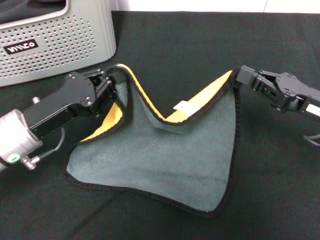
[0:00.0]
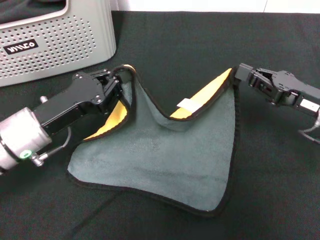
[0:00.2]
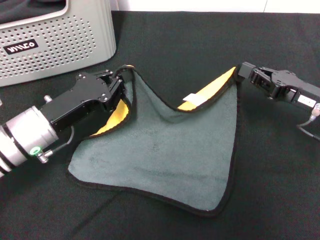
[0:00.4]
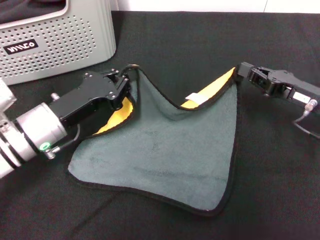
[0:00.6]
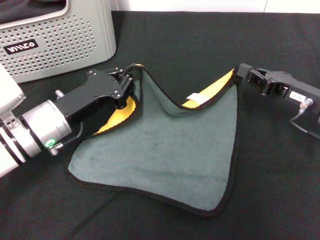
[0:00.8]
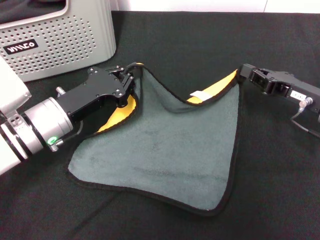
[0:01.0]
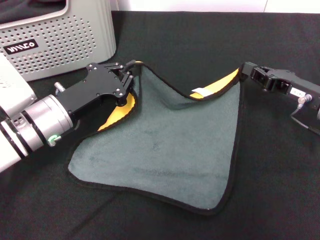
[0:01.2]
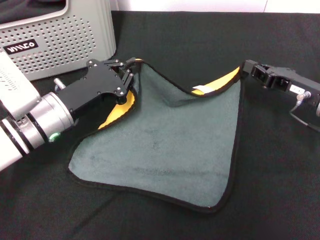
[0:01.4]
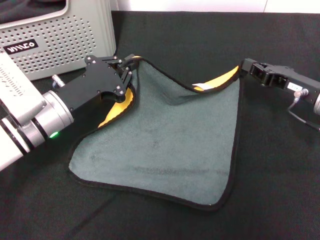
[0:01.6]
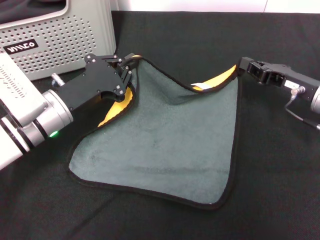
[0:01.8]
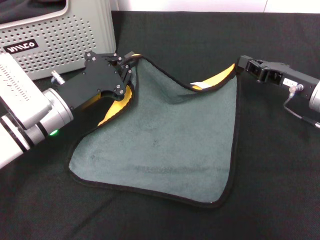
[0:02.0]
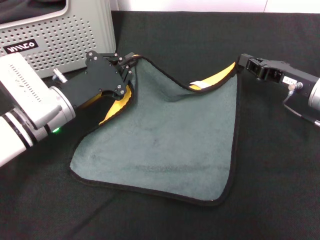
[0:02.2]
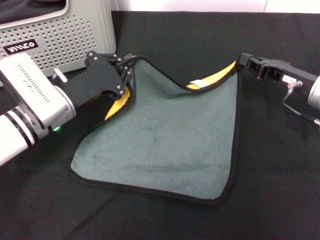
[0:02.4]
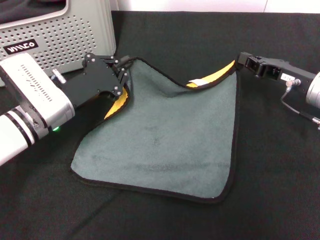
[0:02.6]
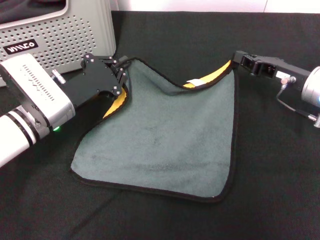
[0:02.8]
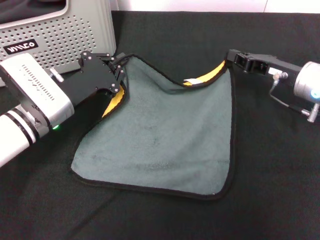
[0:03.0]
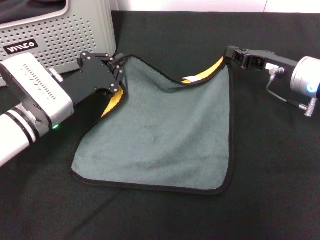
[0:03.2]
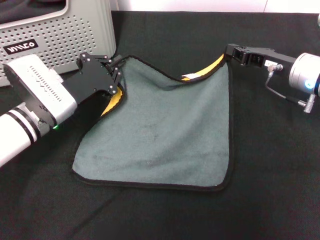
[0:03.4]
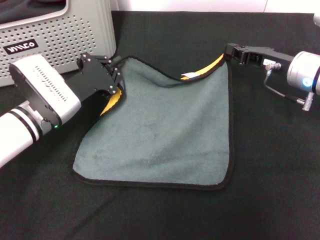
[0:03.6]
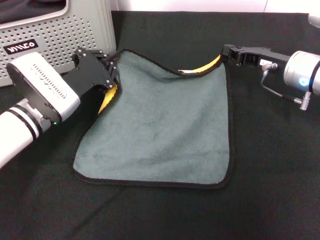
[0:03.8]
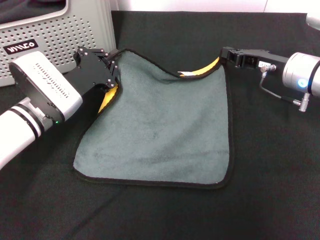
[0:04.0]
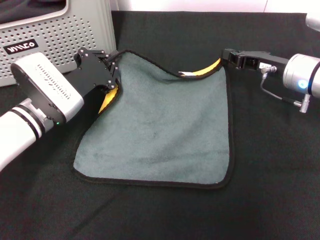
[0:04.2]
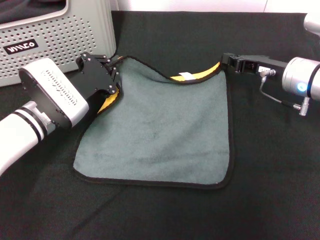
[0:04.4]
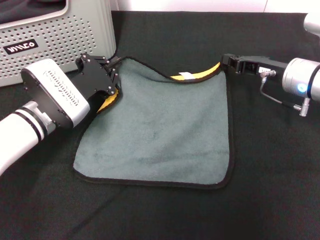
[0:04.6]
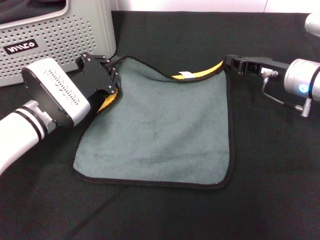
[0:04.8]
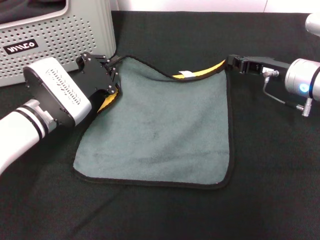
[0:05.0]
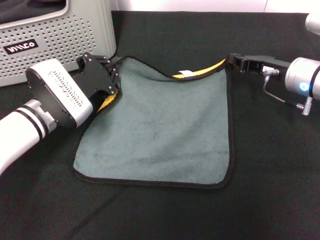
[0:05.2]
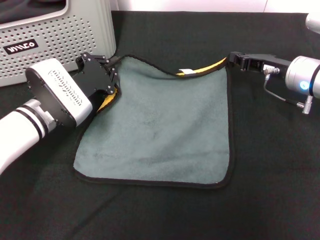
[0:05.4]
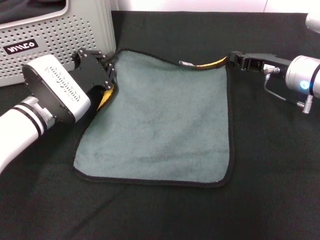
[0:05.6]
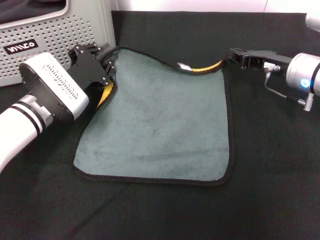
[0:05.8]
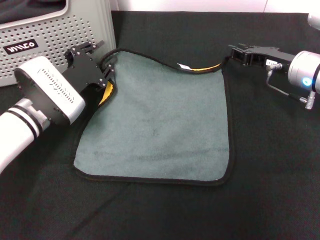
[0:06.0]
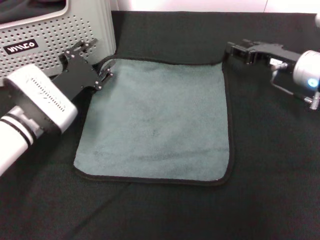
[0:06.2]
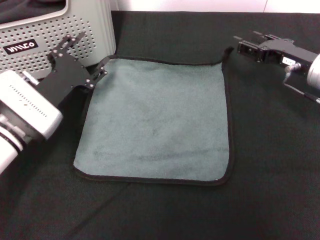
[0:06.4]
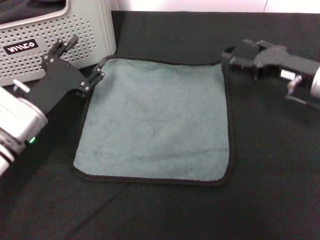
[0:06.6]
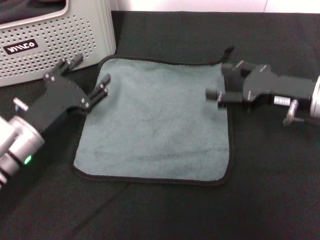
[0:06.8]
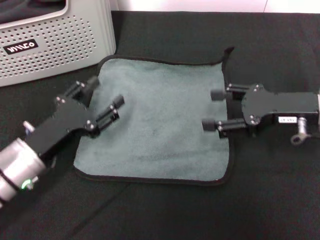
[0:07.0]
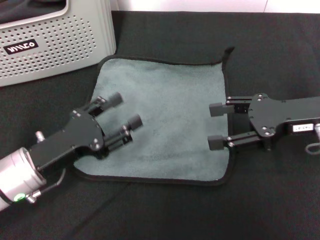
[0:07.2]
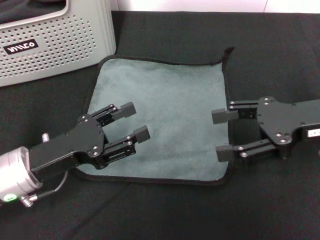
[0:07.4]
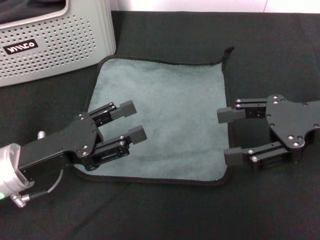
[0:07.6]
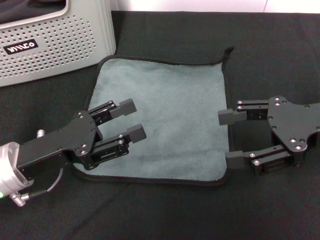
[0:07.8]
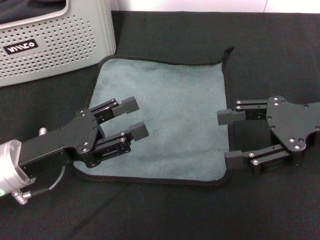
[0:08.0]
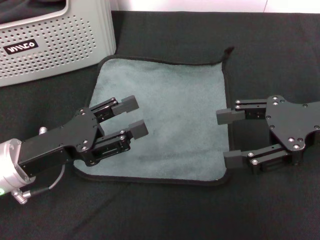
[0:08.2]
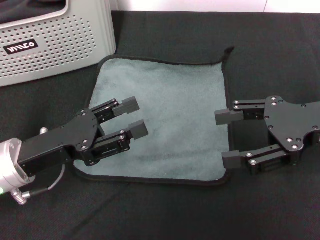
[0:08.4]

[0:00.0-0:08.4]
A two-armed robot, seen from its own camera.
Task of the whole recording: pick up the towel from the storage box and lay it flat on the black tablecloth.
Step, 0.0 to 6.0 s: Spread the towel flat with the right gripper.
0.0 to 1.4 s: The left gripper changes place by about 5 cm; the right gripper goes about 5 cm forward.
2.8 to 5.6 s: There are only small adjustments of the grippers.
5.6 to 7.0 s: The two grippers go roughly 10 cm backward. The right gripper opens. The left gripper opens its fingers.
7.0 to 8.4 s: Both grippers travel together upward, about 5 cm.

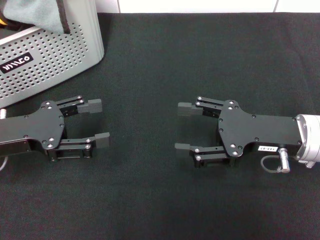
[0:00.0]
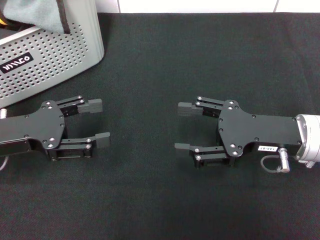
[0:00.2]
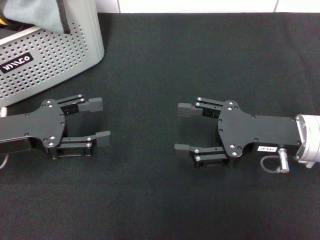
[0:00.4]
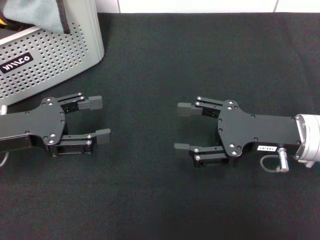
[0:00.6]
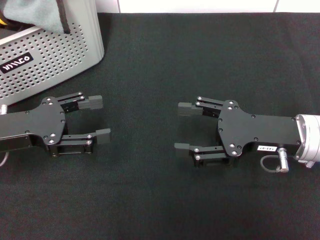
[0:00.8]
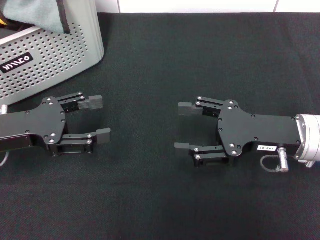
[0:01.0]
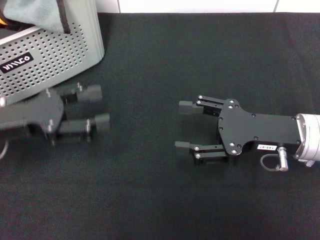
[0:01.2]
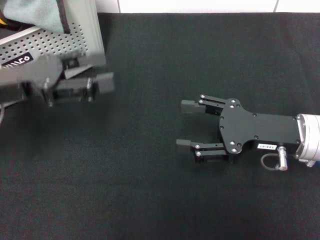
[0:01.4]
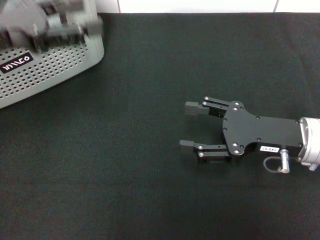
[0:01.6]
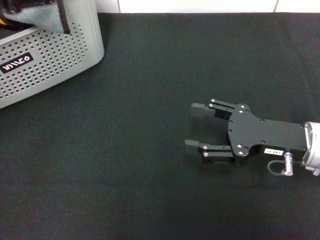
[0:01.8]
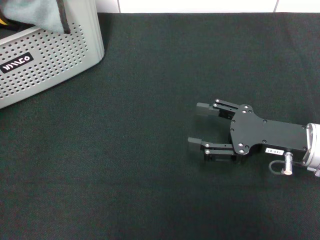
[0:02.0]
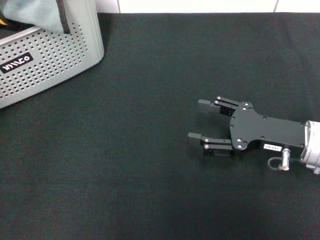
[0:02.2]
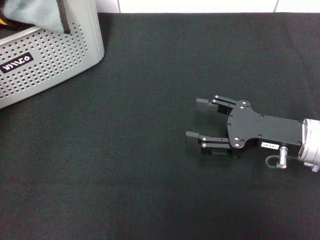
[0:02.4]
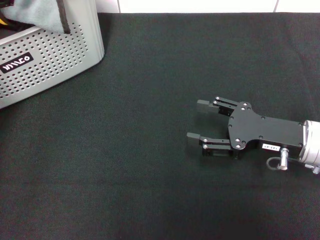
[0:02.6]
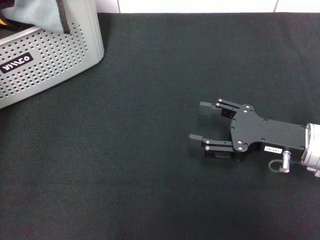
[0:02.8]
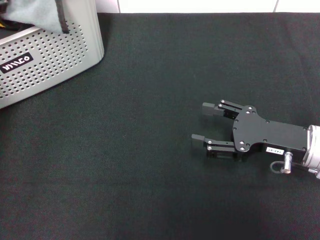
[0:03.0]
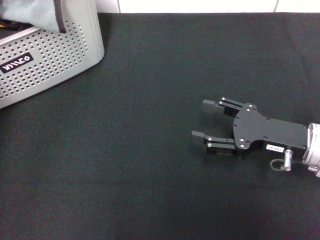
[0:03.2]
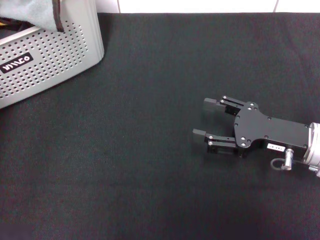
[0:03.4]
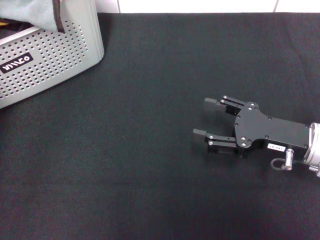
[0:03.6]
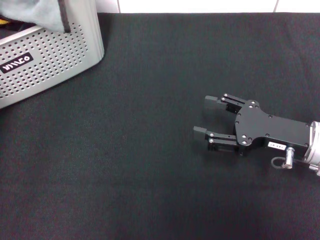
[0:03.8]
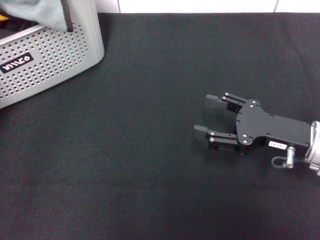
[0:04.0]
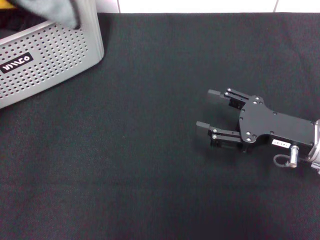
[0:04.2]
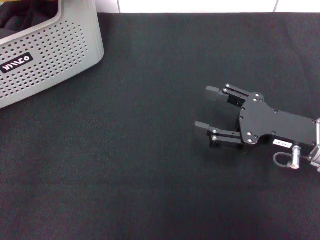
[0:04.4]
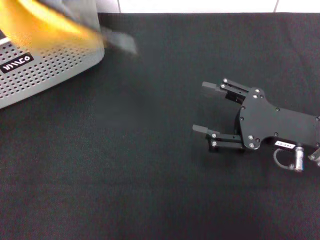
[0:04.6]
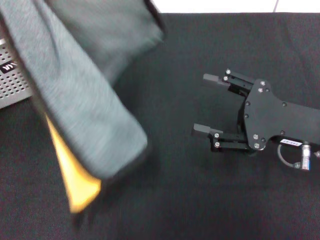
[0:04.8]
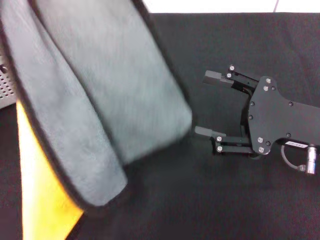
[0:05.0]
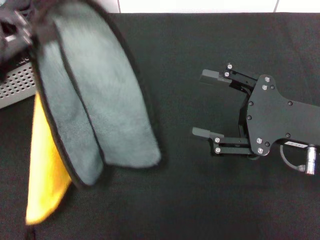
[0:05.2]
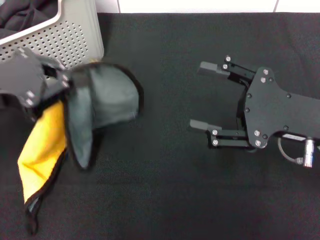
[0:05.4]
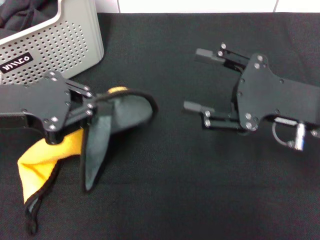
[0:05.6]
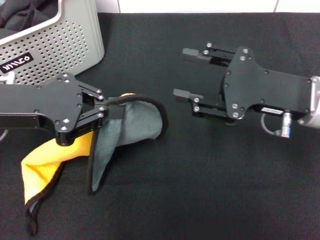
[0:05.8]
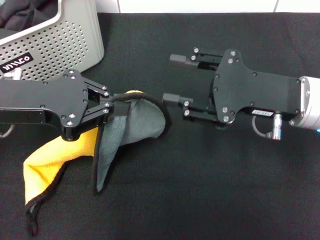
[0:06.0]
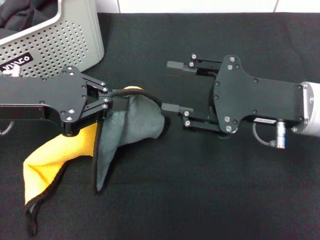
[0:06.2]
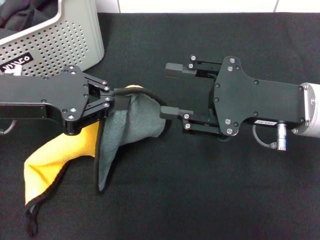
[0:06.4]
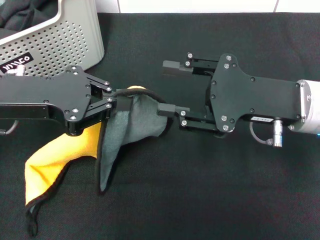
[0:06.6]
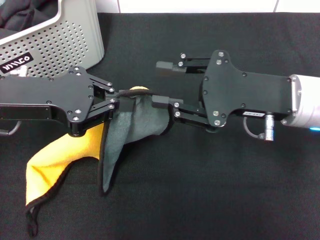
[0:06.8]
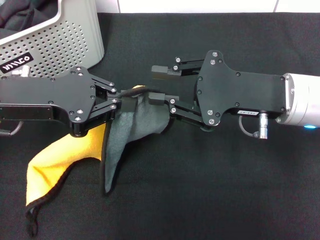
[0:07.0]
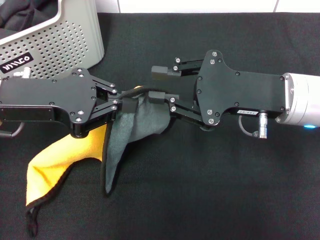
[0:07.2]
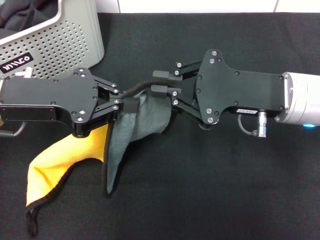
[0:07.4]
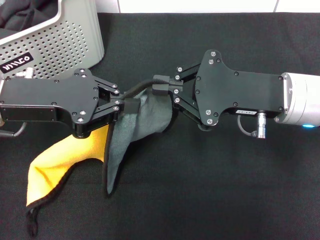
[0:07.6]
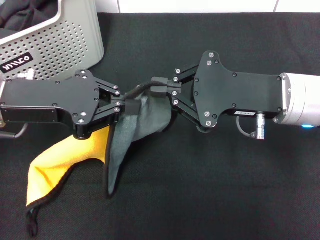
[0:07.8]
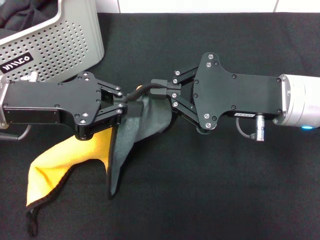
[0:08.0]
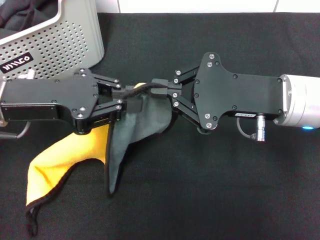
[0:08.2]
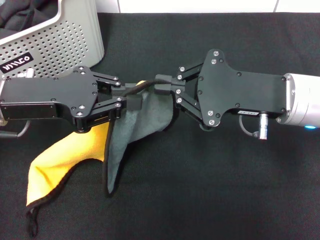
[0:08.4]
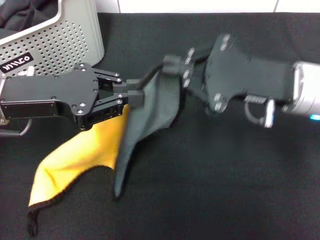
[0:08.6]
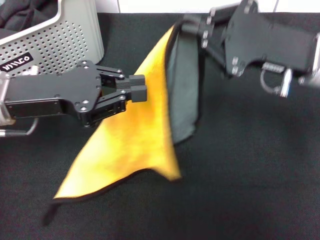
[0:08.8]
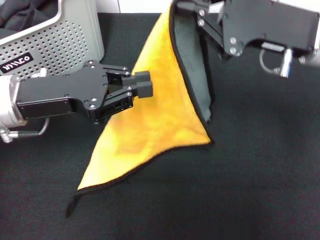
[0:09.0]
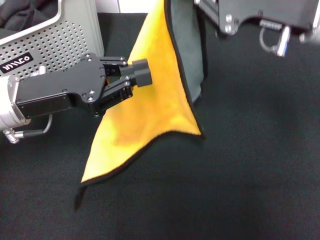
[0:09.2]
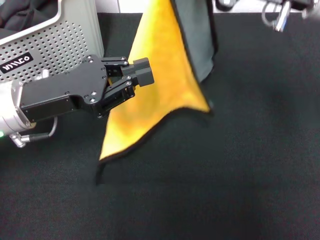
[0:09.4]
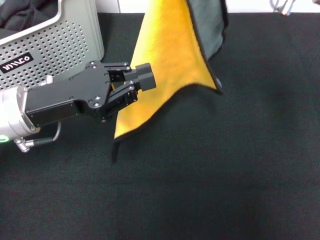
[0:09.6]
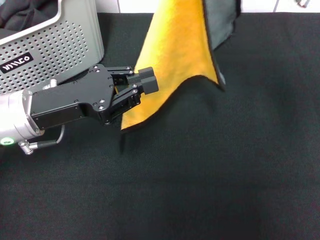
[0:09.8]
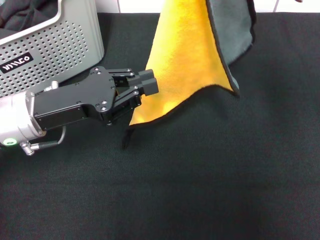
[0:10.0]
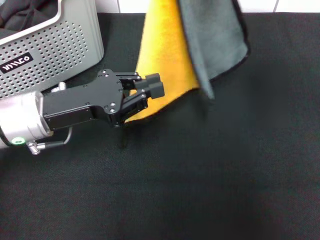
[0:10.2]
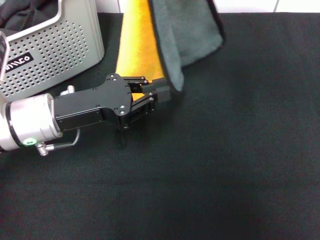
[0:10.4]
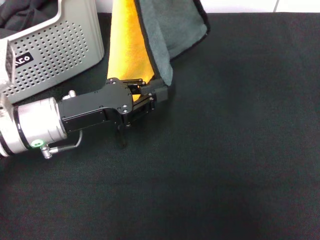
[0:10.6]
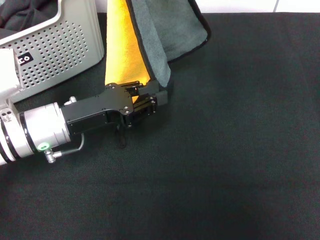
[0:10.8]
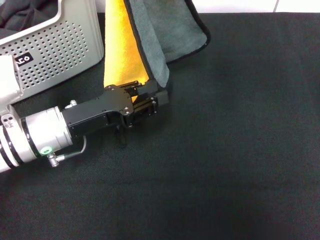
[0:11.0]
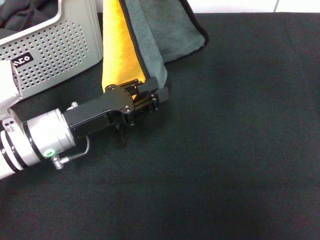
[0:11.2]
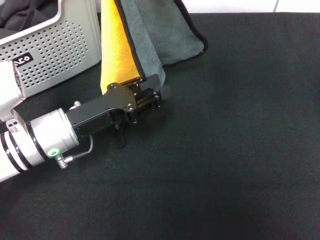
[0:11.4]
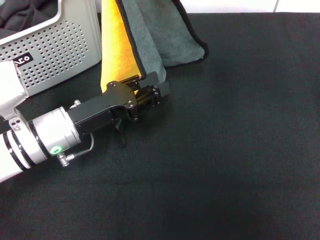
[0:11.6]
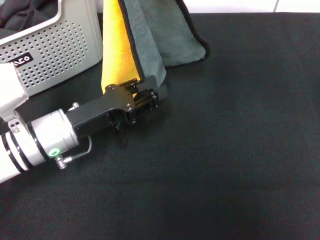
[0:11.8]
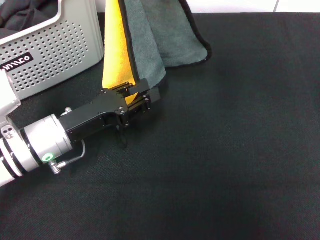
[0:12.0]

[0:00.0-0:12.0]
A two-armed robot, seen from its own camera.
Task of the whole recording: pick up the towel from the storage box and lay it flat on the black tablecloth.
Step, 0.0 to 3.2 s: Pick up a towel with the left gripper.
Step, 3.4 to 7.6 s: Spread the towel flat with the left gripper.
0.0 to 1.6 s: The left gripper shifts about 10 cm upward.
1.6 to 3.0 s: The left gripper shifts by approximately 5 cm.
3.0 to 4.4 s: The left gripper shifts about 5 cm backward, and closes up.
4.4 to 6.0 s: The right gripper travels upward by some 5 cm, while the left gripper heads downward and to the right, covering some 10 cm.
6.0 to 7.6 s: The right gripper closes.
7.6 to 9.0 s: The right gripper ends up roughly 5 cm from where it was.
9.0 to 10.4 s: The right gripper moves upward, about 10 cm, while the left gripper ends up about 5 cm from where it was.
10.4 to 12.0 s: The left gripper moves downward, approximately 5 cm.

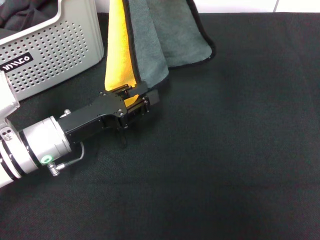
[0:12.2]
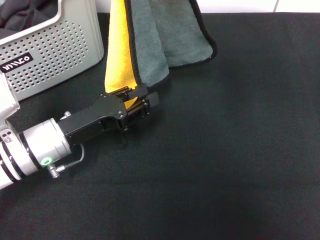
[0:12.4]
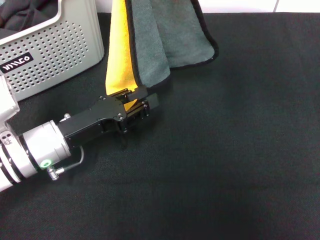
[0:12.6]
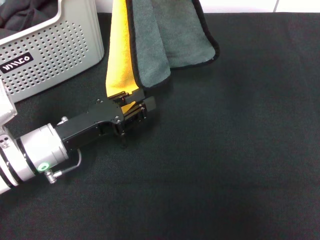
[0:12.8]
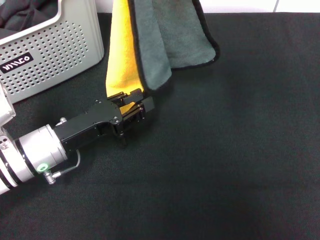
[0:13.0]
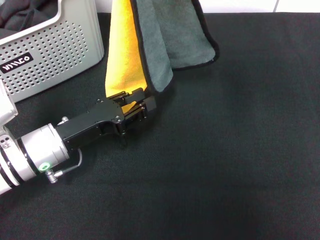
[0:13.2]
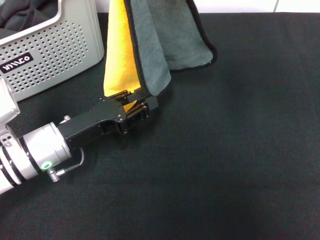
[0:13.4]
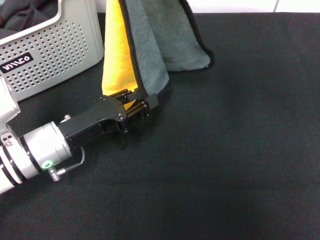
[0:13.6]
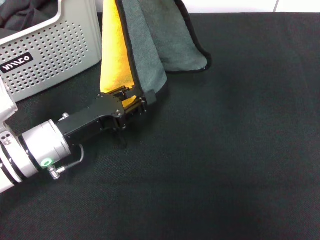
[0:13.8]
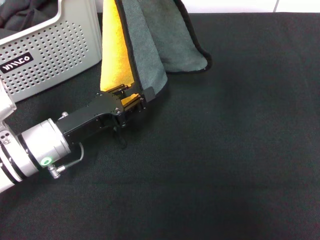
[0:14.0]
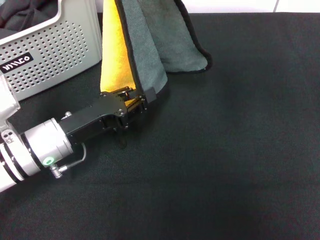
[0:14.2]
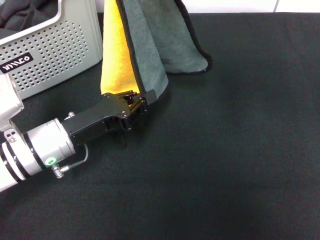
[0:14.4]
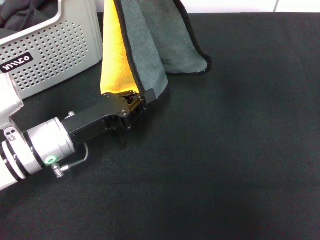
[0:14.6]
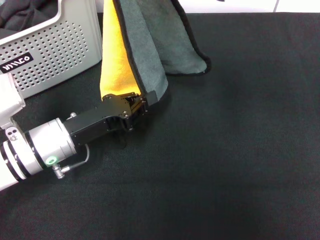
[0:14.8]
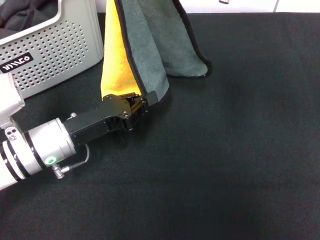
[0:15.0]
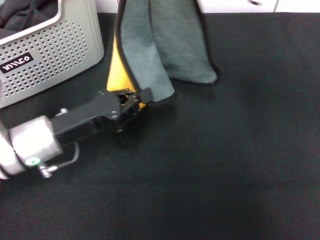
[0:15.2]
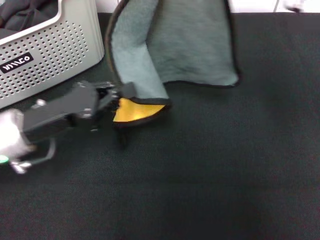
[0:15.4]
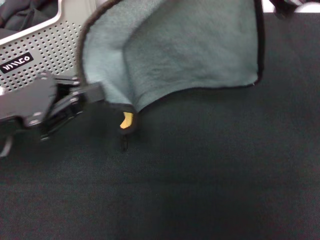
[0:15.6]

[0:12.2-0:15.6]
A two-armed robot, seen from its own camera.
Task of the whole recording: pick up the towel from the storage box and lay it flat on the black tablecloth.
12.2 to 13.8 s: There are only small adjustments of the grippers.
13.8 to 15.6 s: The left gripper shifts about 10 cm upward and to the left, and closes up. The right gripper shifts some 10 cm to the right.
